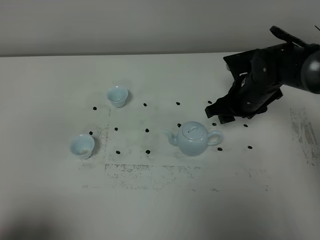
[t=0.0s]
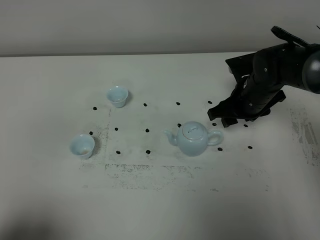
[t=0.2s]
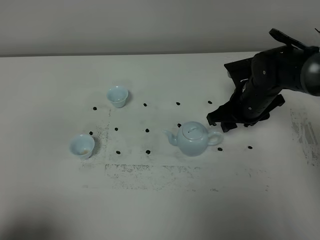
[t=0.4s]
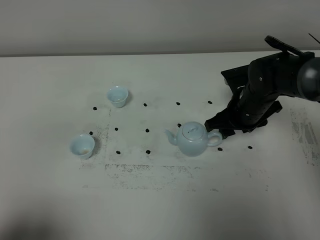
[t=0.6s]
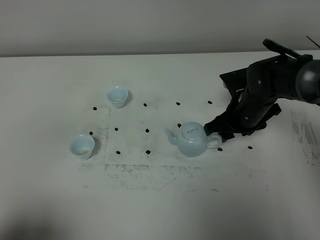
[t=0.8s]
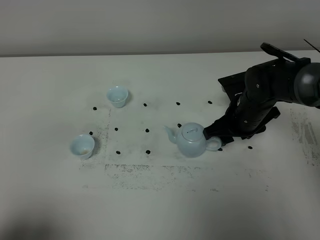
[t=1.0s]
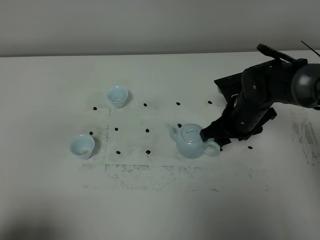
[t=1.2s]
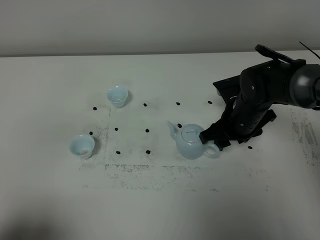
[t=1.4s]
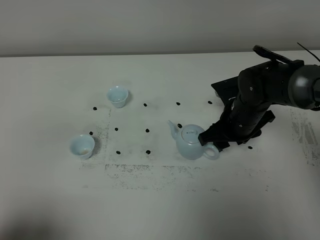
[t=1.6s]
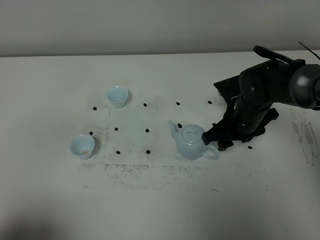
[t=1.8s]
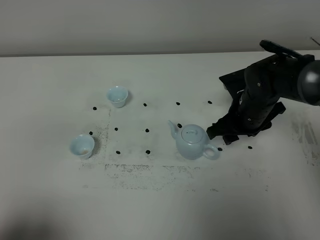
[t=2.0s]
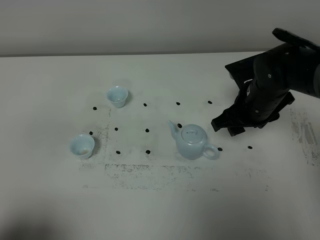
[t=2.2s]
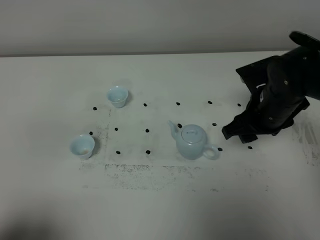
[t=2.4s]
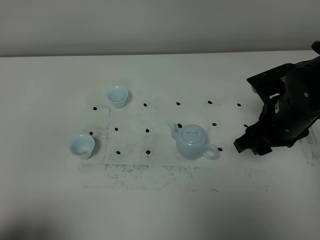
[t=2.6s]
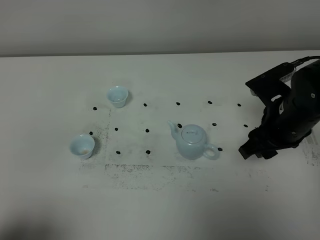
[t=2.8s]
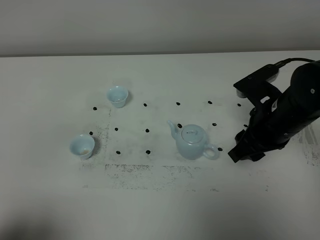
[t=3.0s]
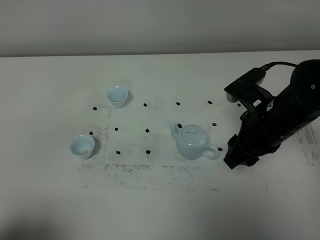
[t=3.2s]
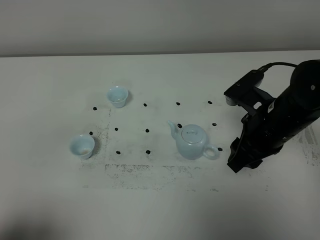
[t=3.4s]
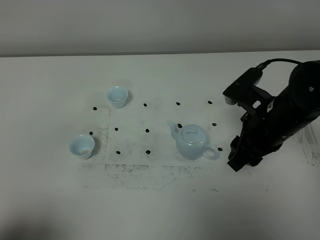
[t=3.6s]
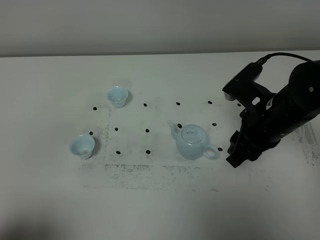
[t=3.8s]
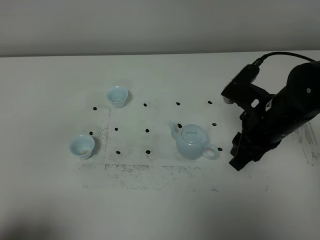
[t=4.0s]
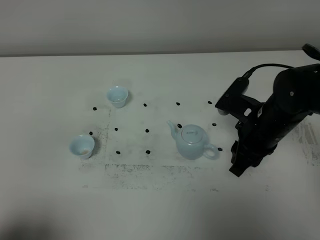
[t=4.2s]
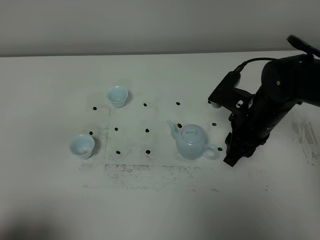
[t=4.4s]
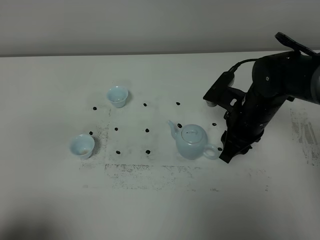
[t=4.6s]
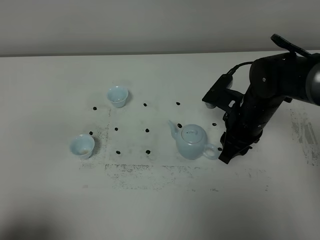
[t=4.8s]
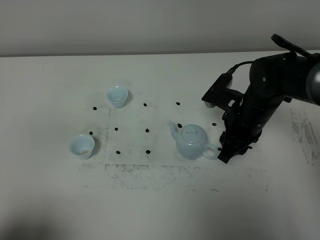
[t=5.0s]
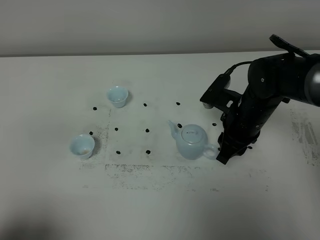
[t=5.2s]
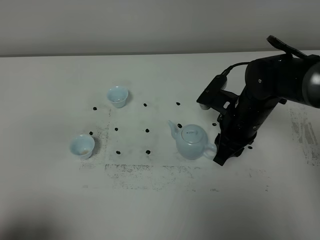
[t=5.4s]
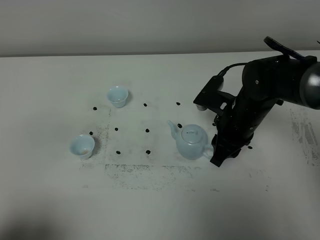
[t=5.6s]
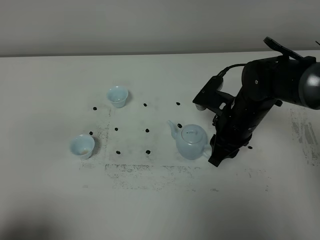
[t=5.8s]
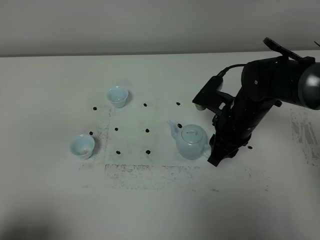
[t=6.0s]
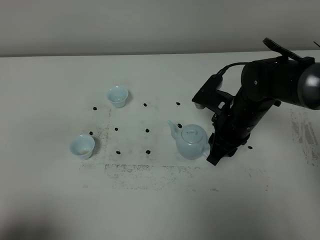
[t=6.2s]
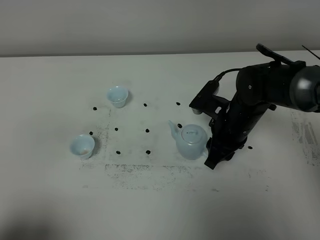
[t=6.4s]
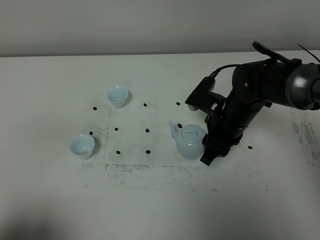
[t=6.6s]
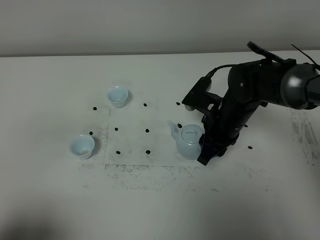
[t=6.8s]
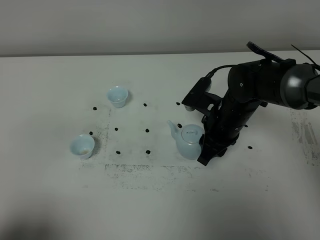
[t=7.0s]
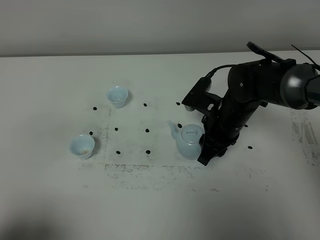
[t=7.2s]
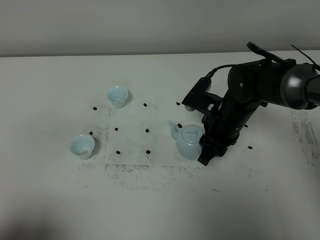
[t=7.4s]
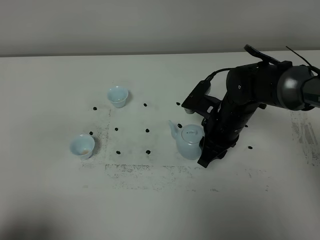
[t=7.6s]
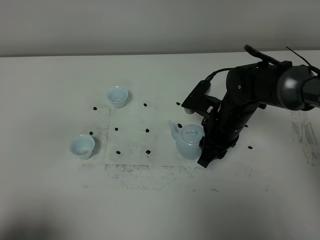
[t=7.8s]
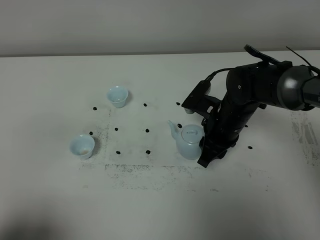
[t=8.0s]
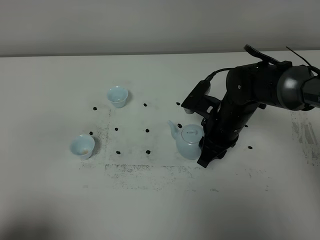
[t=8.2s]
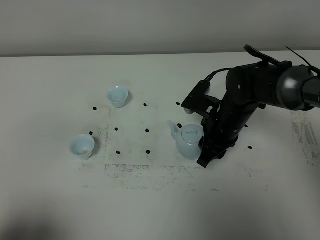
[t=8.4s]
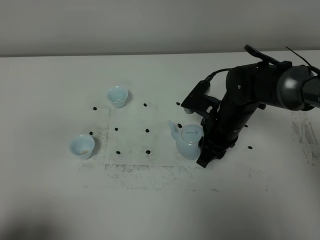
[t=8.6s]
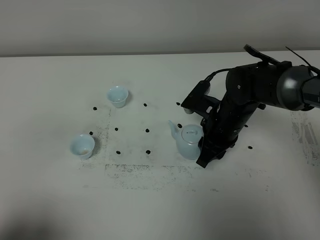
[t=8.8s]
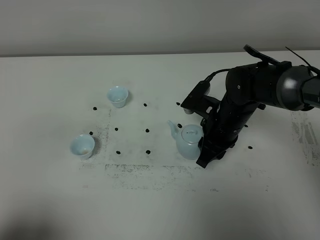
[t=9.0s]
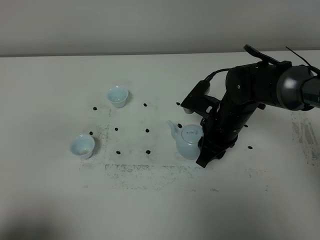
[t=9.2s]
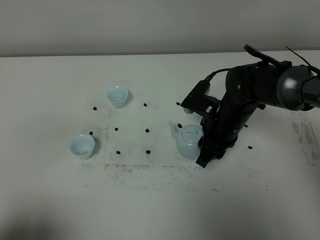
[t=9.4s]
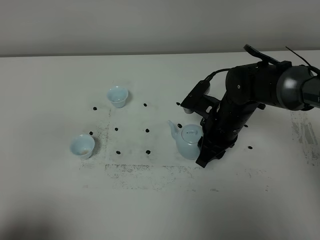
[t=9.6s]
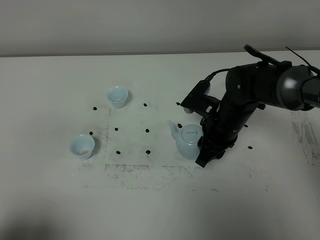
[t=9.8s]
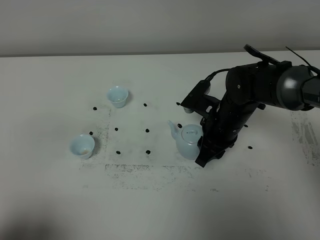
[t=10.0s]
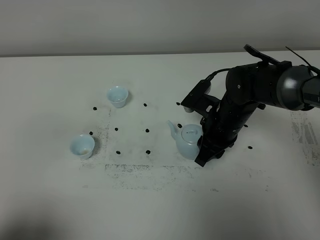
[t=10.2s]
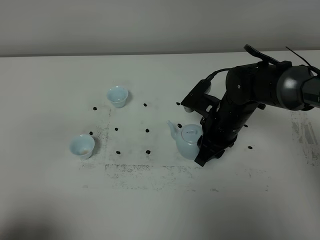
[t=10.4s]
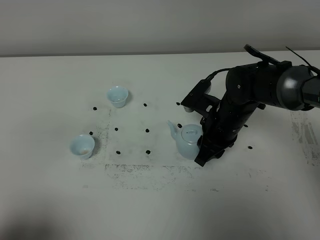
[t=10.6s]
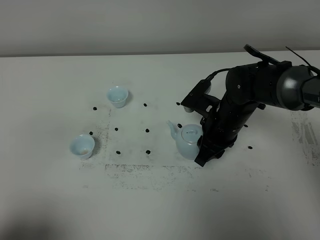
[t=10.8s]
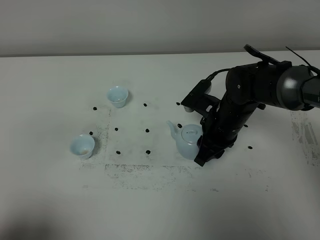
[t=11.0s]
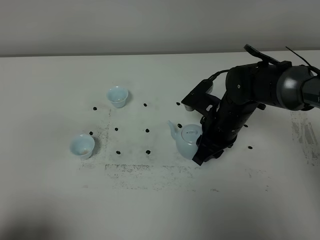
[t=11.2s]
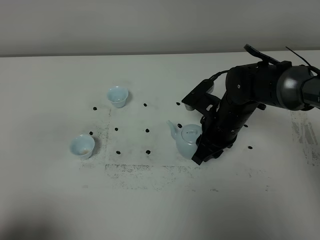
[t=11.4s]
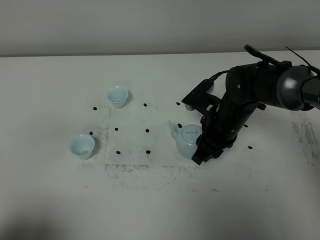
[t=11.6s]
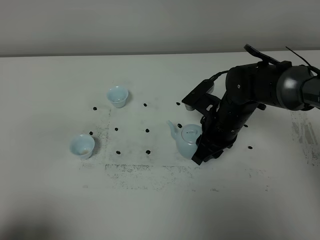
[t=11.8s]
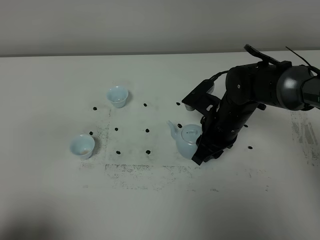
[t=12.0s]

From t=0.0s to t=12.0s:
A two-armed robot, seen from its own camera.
Task of the whole recording: grasp the blue porcelain teapot and pour the tea into the two blue porcelain teacups one by one, put the blue porcelain teapot back in its original place.
From t=0.0s to t=1.6s: The grippers move only a little.
From t=1.6s to t=3.0s: The right gripper moves upward and backward, about 10 cm.
From t=3.0s to t=4.4s: The right gripper changes place by approximately 5 cm.
From t=4.4s to t=7.6s: The grippers stay close to where they were, moving slightly.
From t=7.6s to t=10.4s: The two grippers keep their place.
From t=10.4s to t=12.0s: Neither gripper changes place.

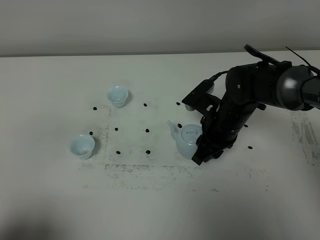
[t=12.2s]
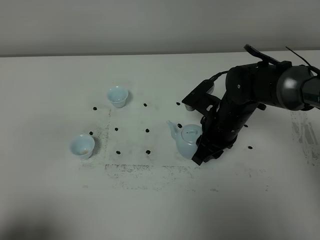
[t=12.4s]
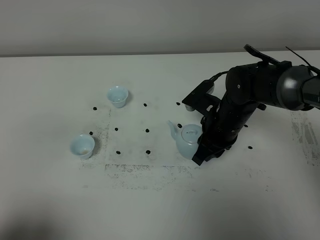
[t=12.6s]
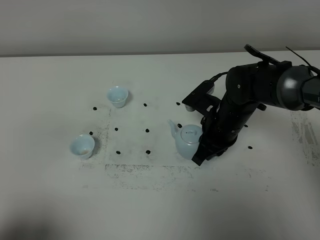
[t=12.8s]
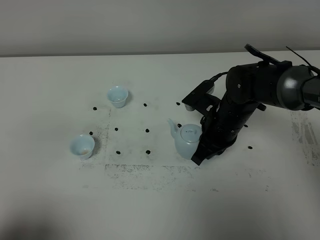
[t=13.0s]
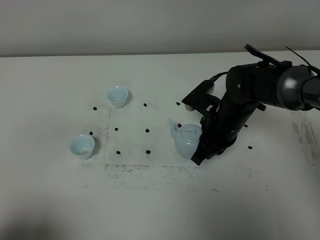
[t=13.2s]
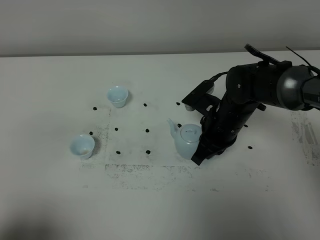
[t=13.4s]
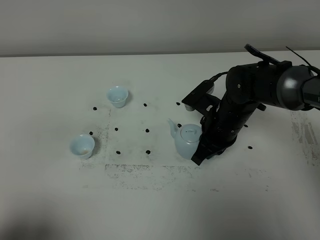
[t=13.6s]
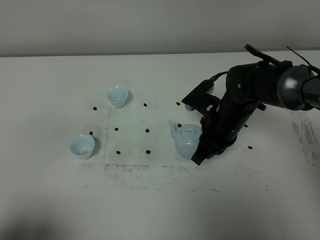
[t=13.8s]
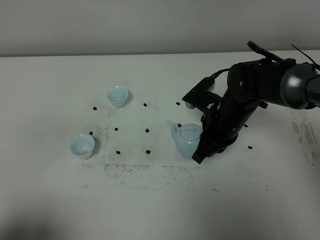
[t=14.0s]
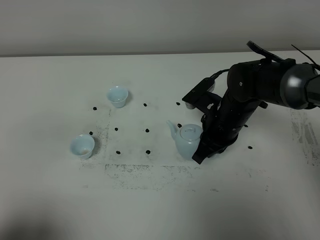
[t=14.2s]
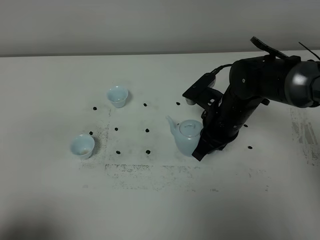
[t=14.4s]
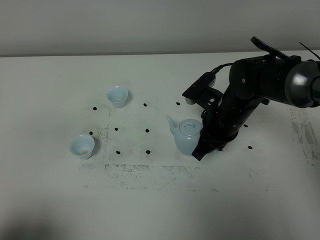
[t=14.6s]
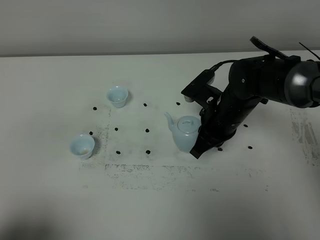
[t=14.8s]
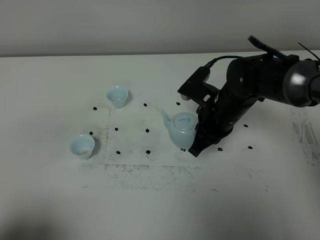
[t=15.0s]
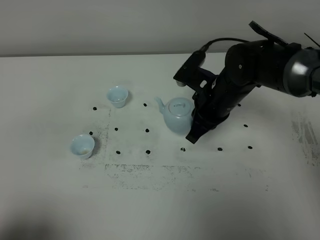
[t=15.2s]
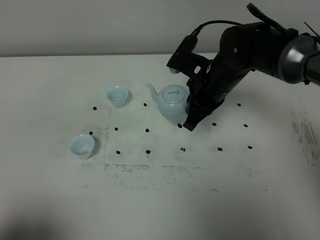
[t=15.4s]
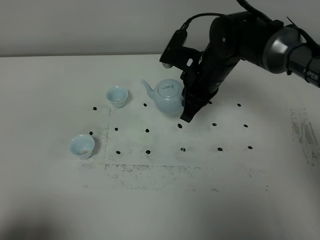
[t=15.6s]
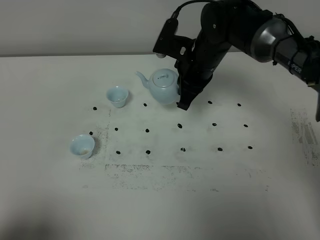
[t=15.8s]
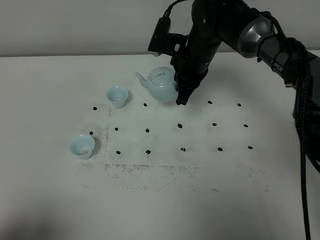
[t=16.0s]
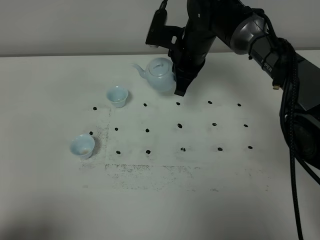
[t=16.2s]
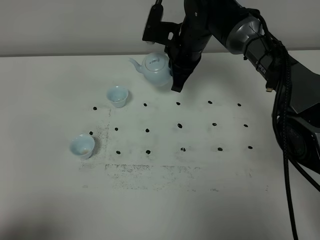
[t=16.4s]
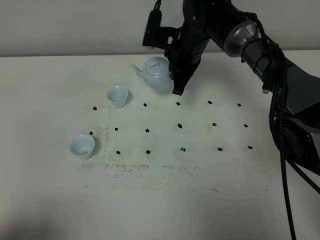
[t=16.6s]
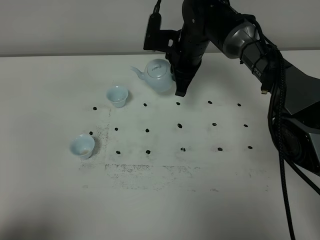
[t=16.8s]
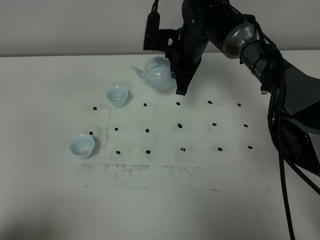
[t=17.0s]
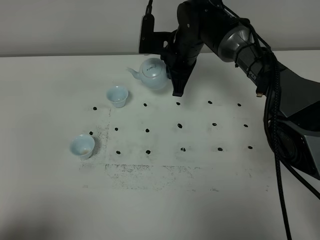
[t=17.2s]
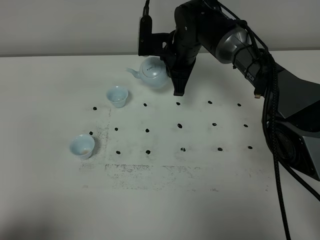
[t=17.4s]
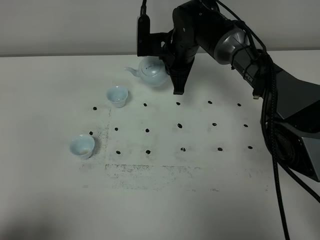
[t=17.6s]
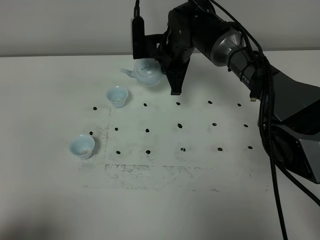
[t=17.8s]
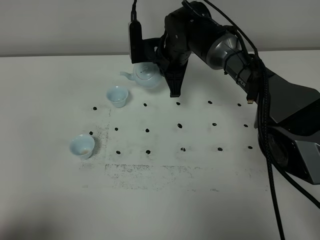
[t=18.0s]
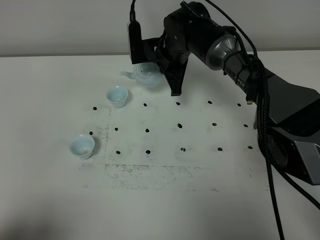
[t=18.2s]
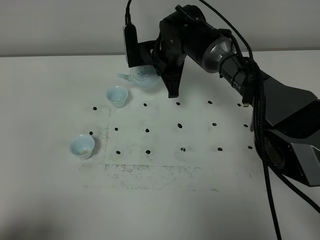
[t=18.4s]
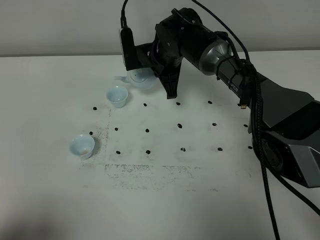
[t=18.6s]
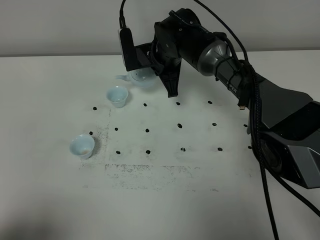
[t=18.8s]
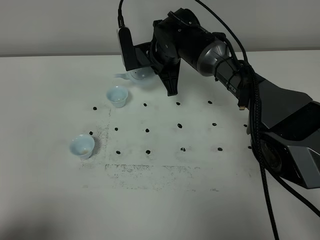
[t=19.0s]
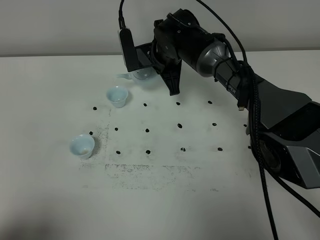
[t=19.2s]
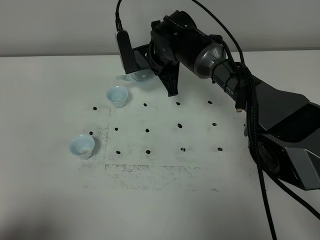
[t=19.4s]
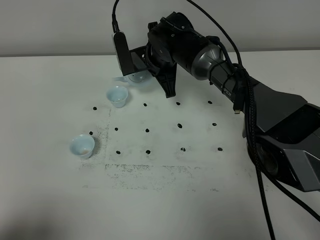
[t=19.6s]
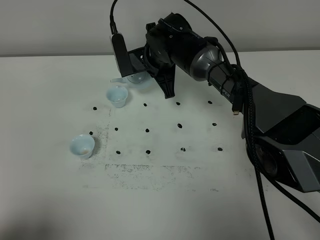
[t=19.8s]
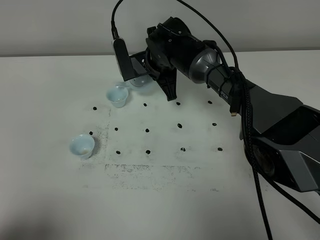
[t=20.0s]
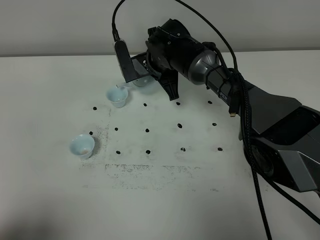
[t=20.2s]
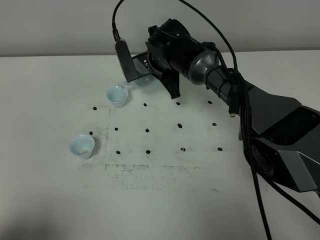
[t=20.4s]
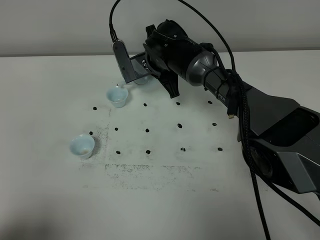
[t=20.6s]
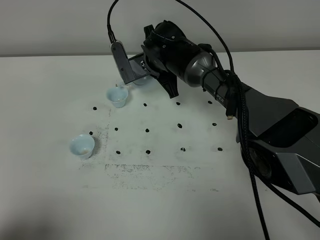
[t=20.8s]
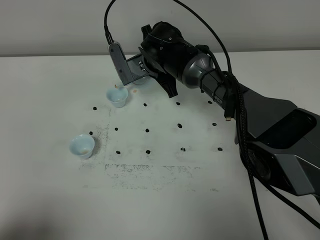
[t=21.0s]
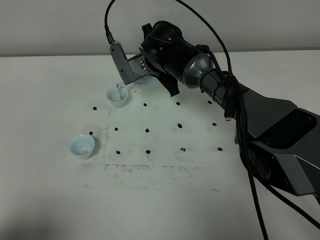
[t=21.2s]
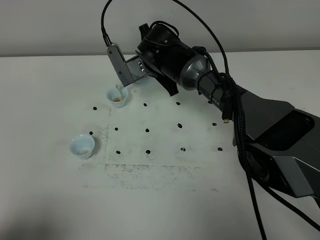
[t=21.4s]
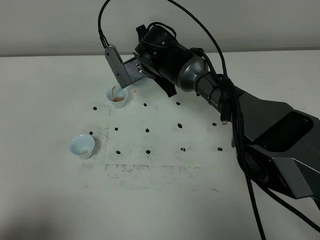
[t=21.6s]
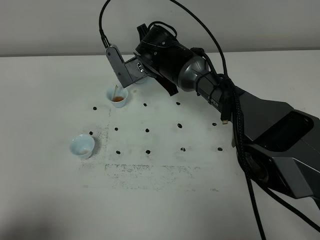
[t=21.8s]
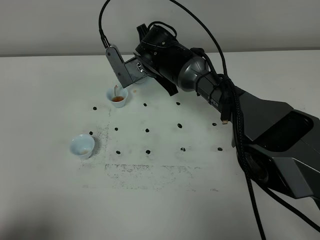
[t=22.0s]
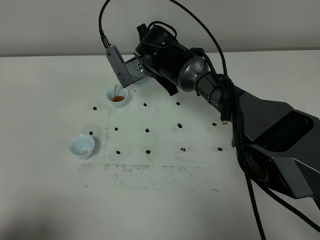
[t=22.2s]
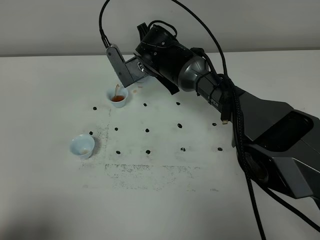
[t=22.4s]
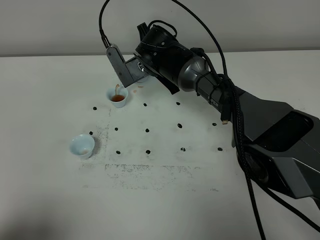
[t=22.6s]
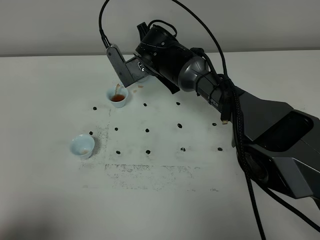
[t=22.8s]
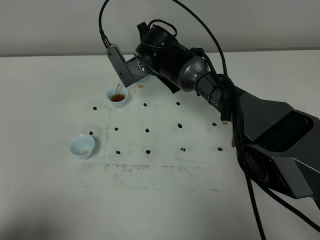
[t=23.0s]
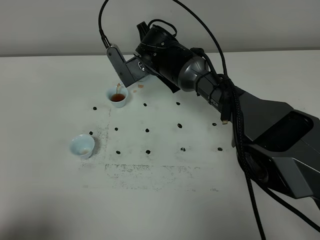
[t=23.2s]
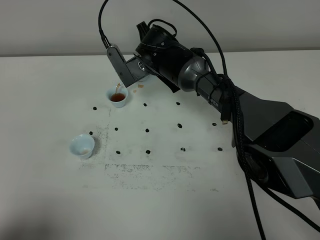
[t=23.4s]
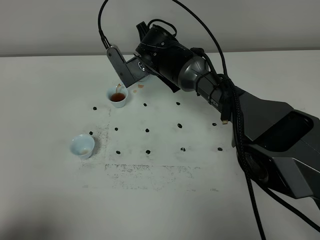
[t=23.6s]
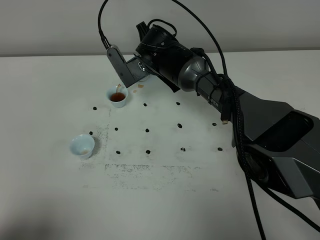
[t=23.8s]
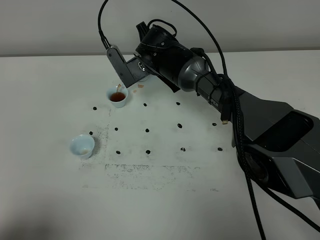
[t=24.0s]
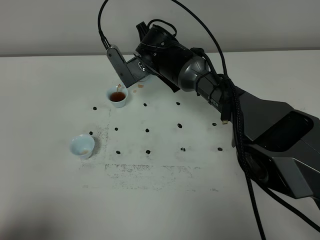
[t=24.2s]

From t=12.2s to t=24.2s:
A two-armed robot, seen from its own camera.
Task of the whole recording: grasp the blue porcelain teapot and pour the tea into the two blue porcelain teacups one by one, put the blue porcelain teapot back in its original place.
Step, from t=12.2s to t=14.8s: Pick up the teapot with the right gripper.
From t=13.8s to t=15.2s: The right gripper shifts by some 5 cm.
From t=15.2s to t=16.6s: The right gripper travels forward by roughly 10 cm.
From t=18.2s to t=19.8s: There are only small adjustments of the grippers.
From t=19.8s to t=21.2s: There are only small adjustments of the grippers.
From t=21.2s to t=22.6s: Neither gripper changes place.
From t=22.6s to t=24.2s: Neither gripper changes place.
